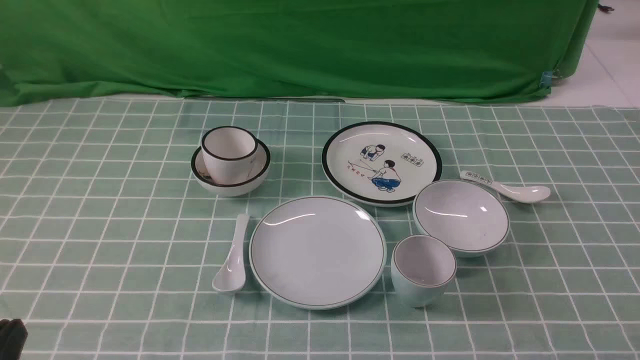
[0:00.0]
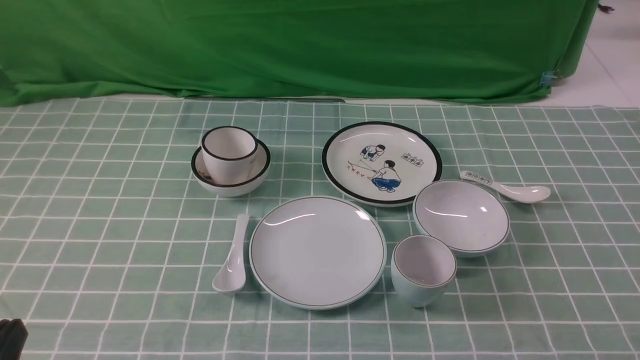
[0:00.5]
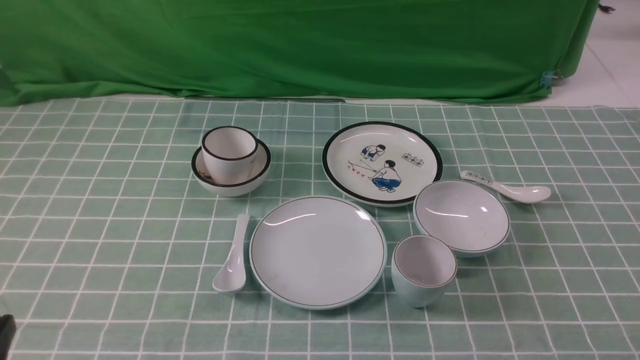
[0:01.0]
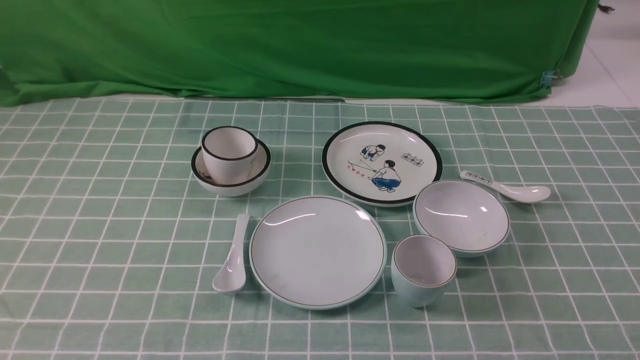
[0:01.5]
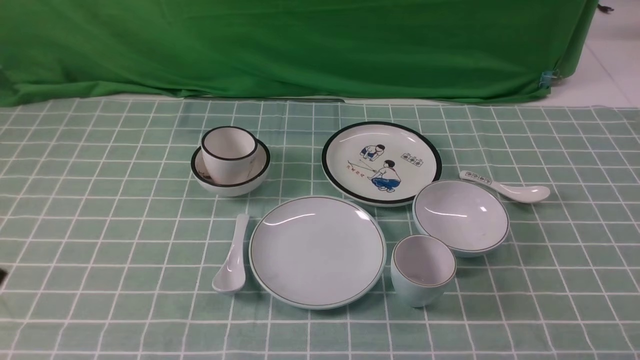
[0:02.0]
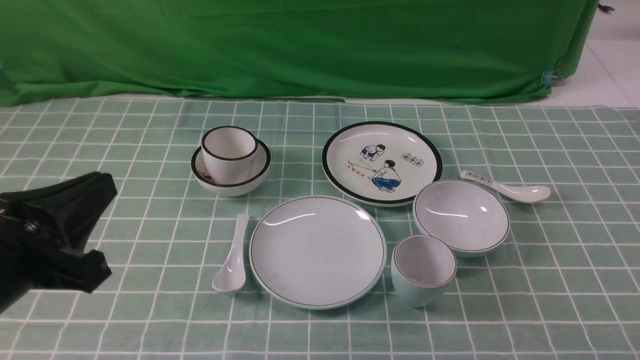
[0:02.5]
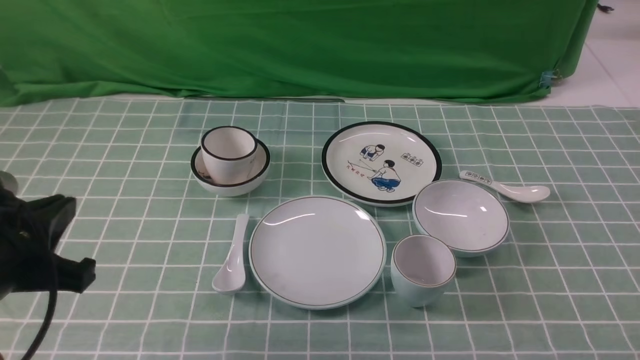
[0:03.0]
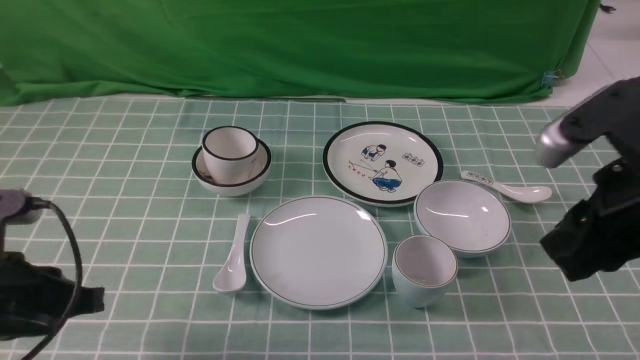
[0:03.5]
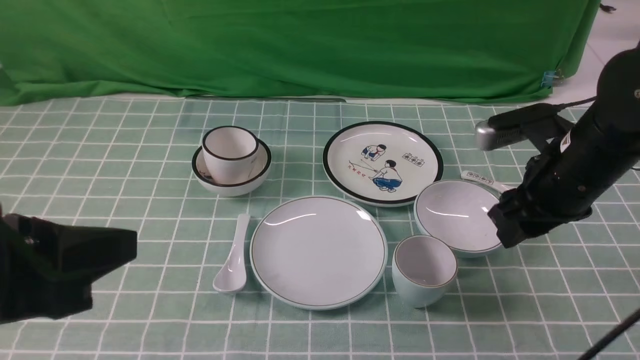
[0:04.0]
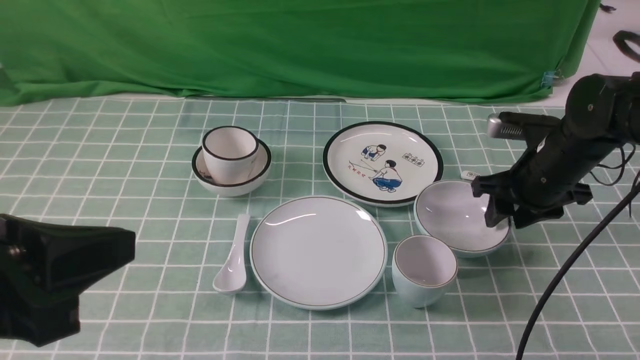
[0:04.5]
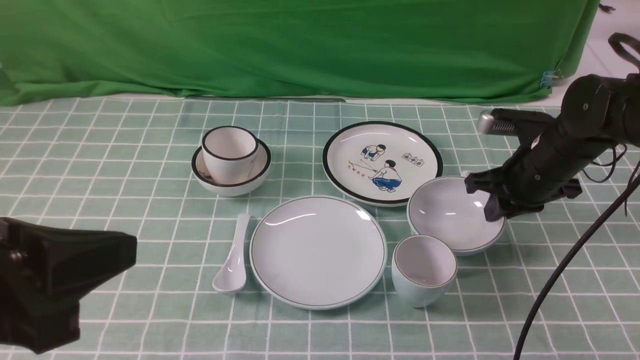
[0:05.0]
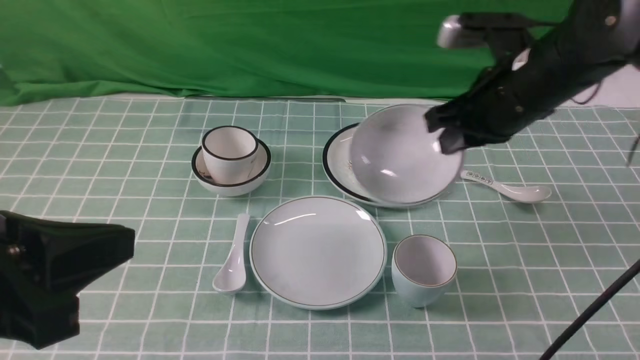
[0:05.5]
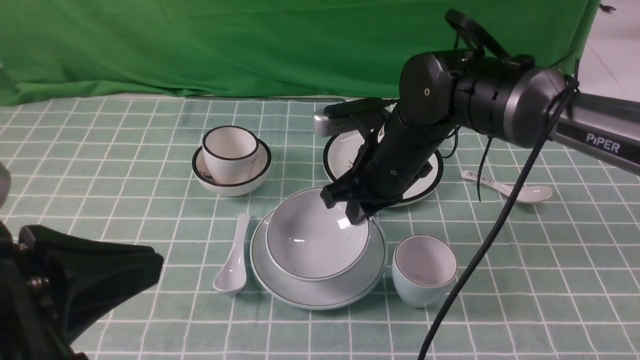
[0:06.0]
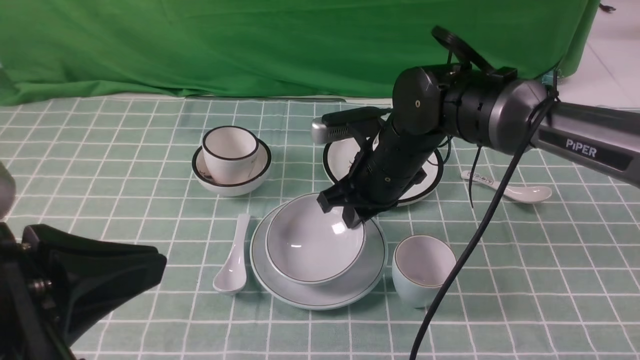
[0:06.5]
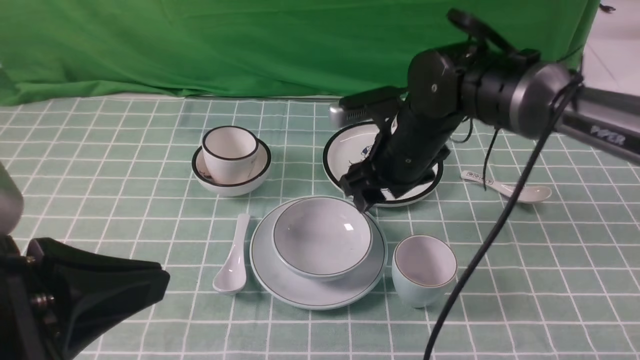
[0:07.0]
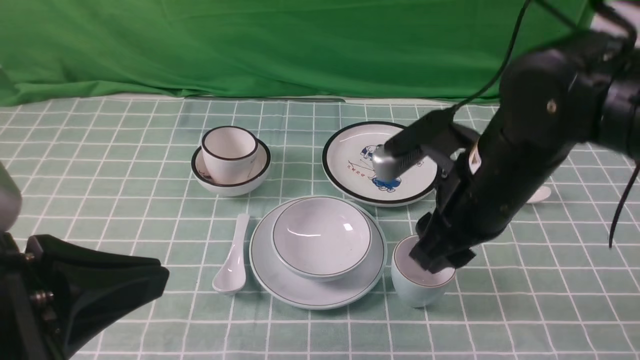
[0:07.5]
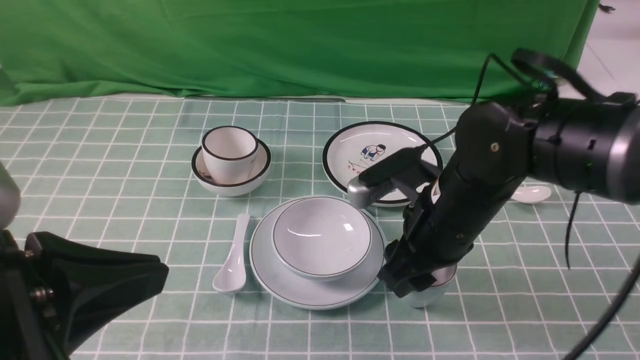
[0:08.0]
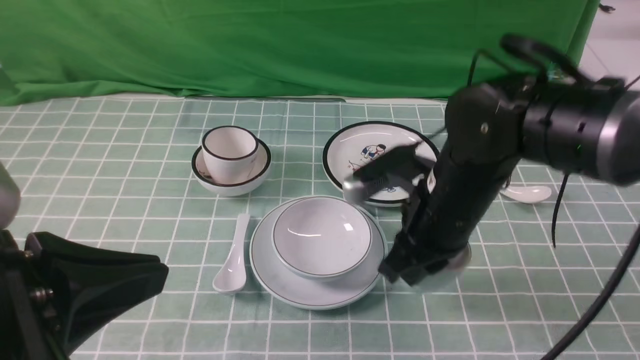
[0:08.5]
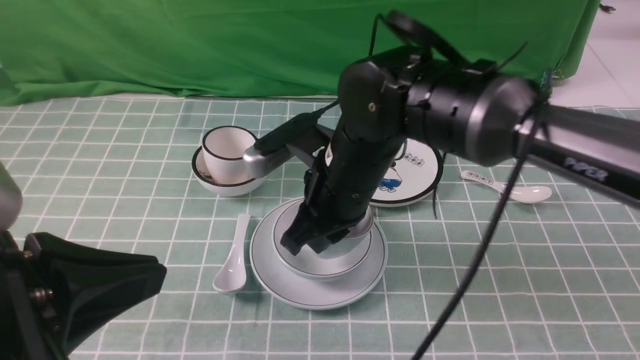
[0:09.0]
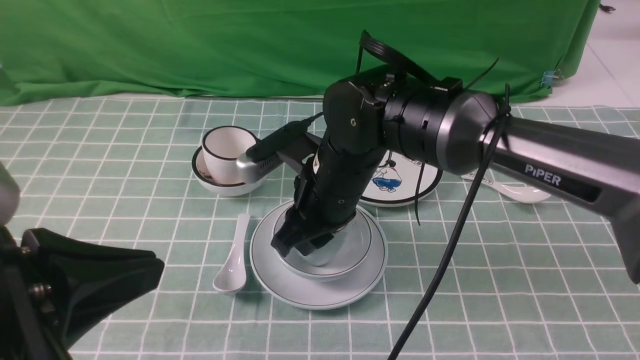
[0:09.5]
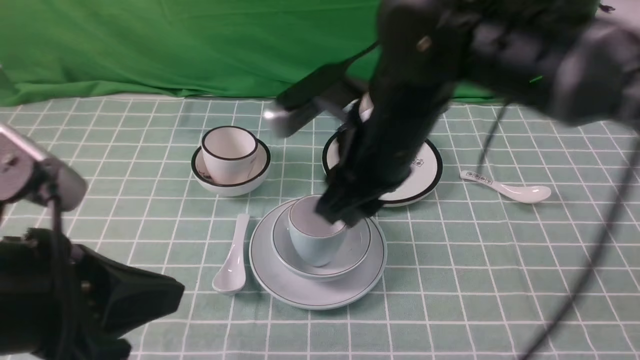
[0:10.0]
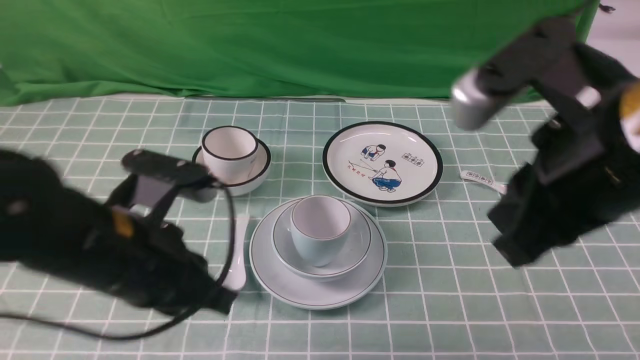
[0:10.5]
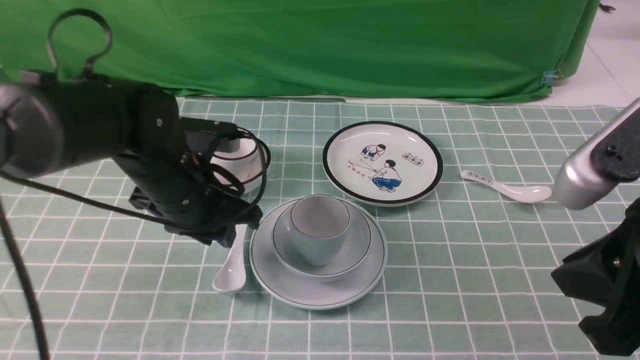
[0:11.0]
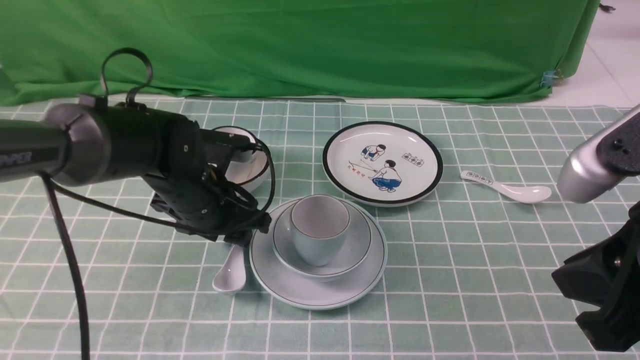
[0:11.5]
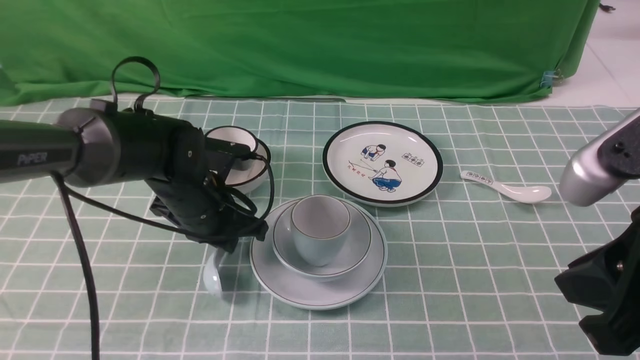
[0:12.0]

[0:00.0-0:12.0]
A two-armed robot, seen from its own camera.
Task of the whole recording: place the bowls on the plates on the blue tablecloth, put the cups on the bowls, and place the spoons in the cups.
Step, 0:00.0 to 0:04.5: Grasp the bowl with the right gripper.
Step, 0:05.0 to 0:06.5: Place the bowl on the plate with the right gripper.
Step, 0:07.0 to 0:08.0: Grasp the cup with the right gripper.
Step, 0:08.5 to 0:09.5: Place the cup on the bowl with the right gripper.
Step, 0:10.0 to 0:11.5: Grasp the spoon with the left gripper.
0:02.0 to 0:04.0: The right gripper travels forward by roughly 25 cm, while the left gripper moves forward, roughly 5 cm.
0:04.0 to 0:06.0: The right gripper moves to the left, some 15 cm, and closes its fingers.
0:06.0 to 0:08.0: The right gripper goes roughly 10 cm backward, and opens.
0:08.0 to 0:10.0: The right gripper goes roughly 10 cm to the left and upward, and closes, then opens again.
0:10.0 to 0:12.0: The right gripper goes roughly 25 cm to the right and backward, and closes its fingers; the left gripper goes about 30 cm forward and downward, and opens and closes again.

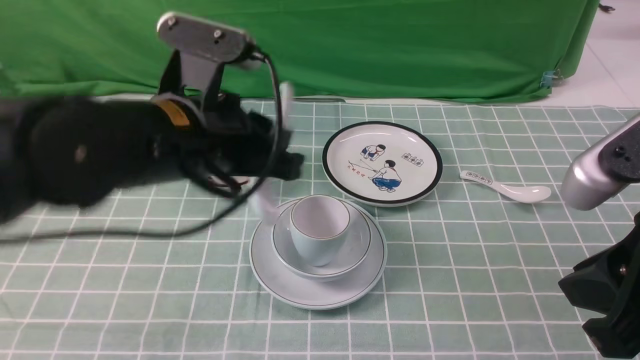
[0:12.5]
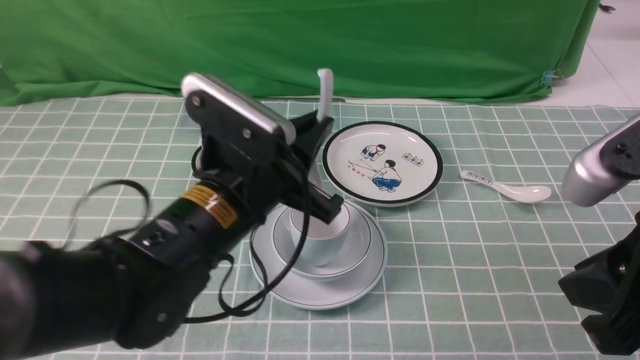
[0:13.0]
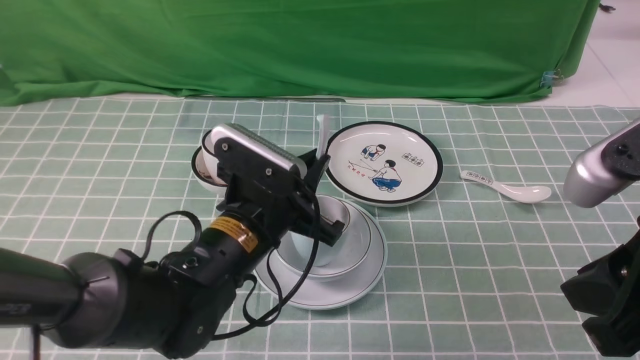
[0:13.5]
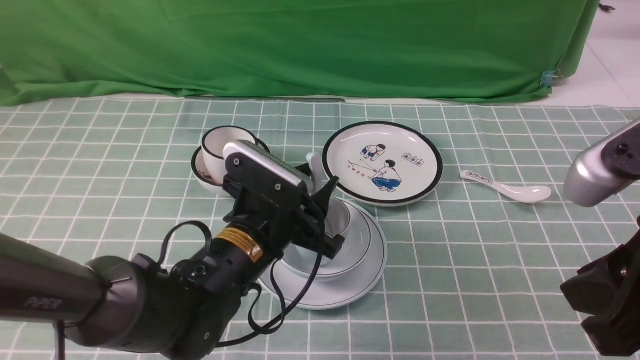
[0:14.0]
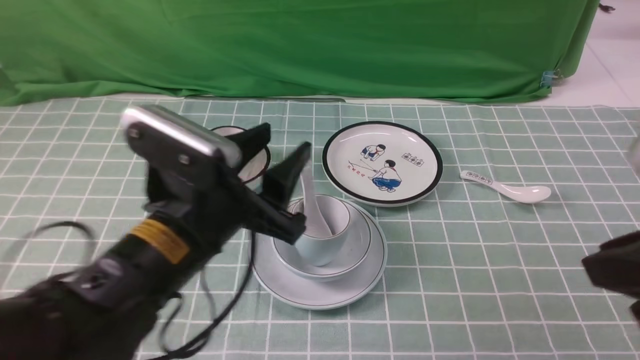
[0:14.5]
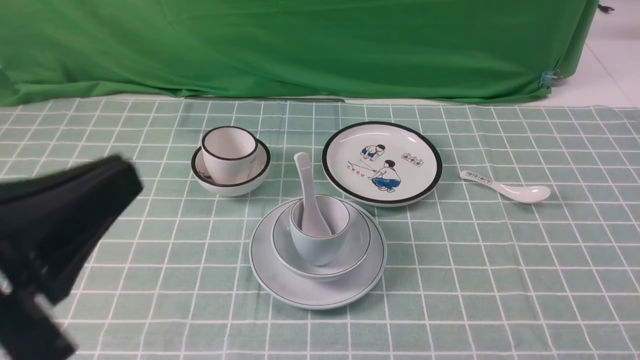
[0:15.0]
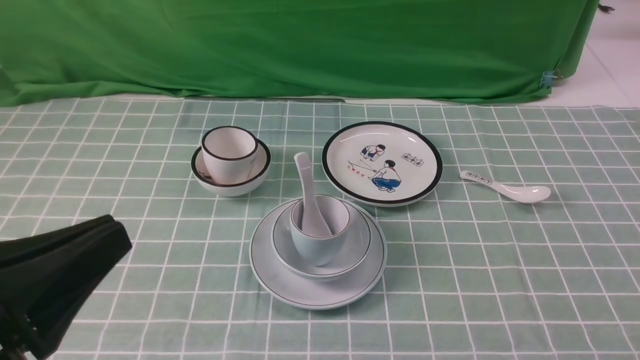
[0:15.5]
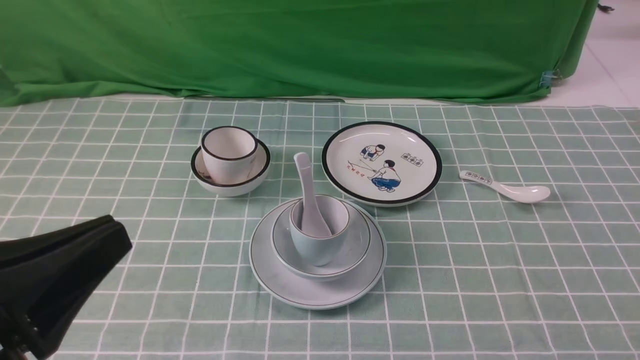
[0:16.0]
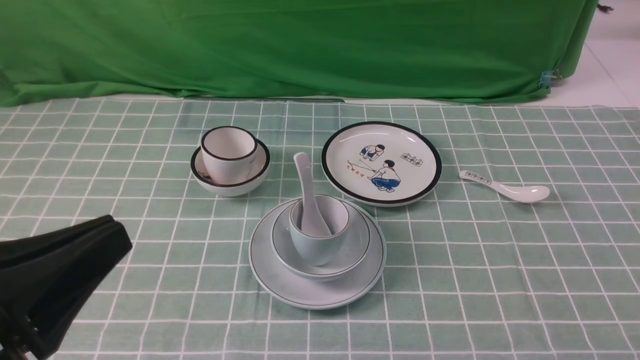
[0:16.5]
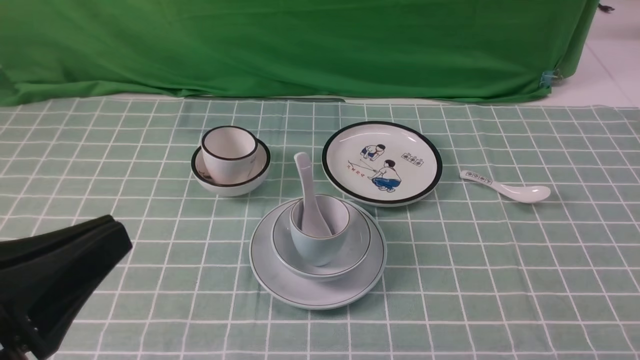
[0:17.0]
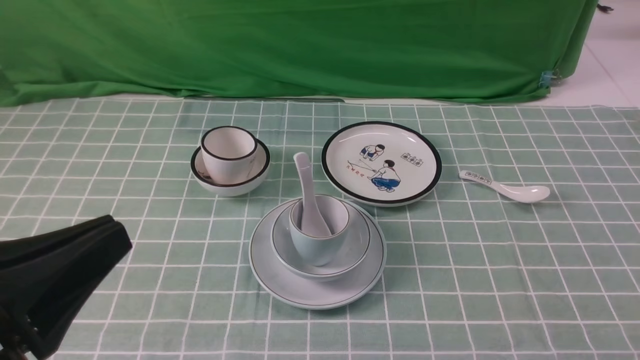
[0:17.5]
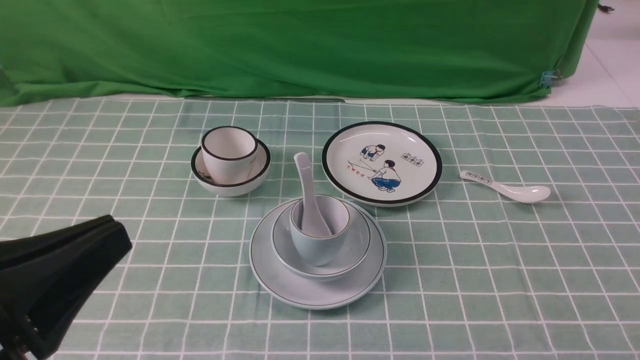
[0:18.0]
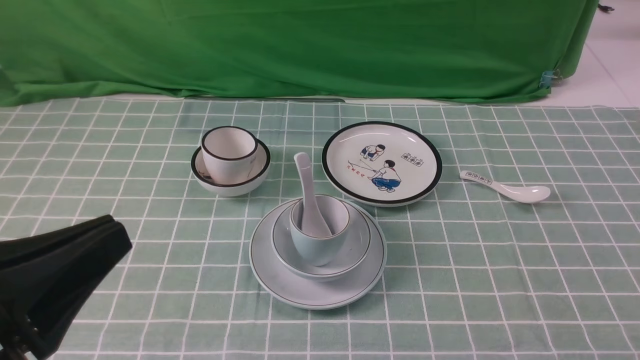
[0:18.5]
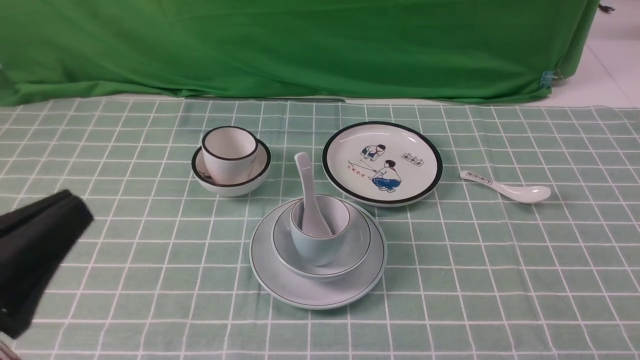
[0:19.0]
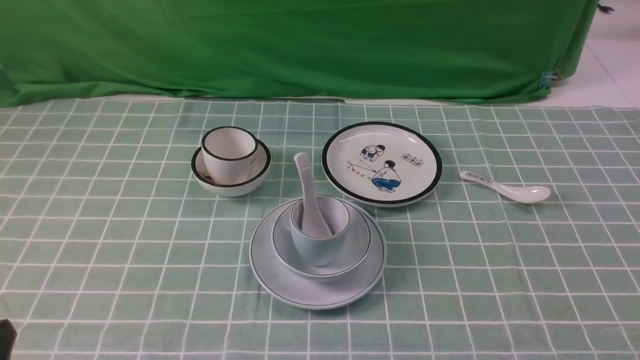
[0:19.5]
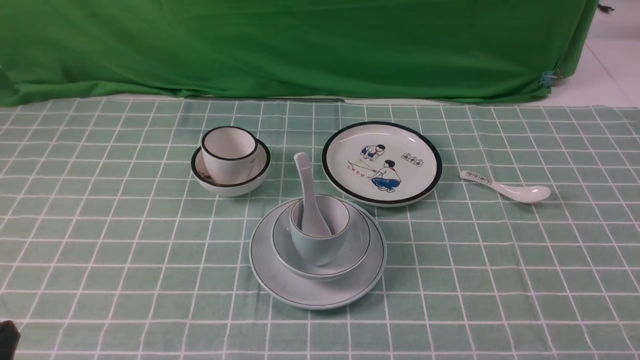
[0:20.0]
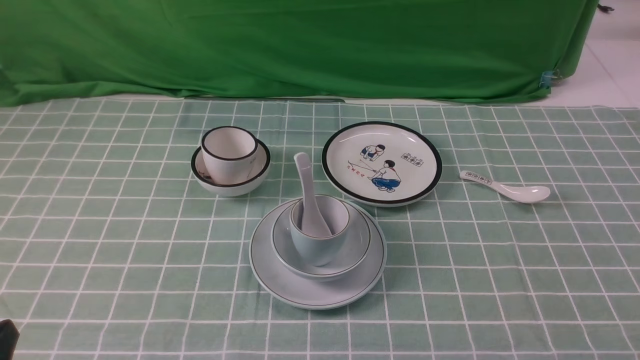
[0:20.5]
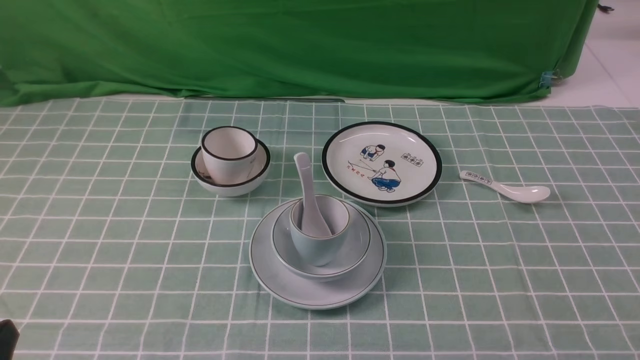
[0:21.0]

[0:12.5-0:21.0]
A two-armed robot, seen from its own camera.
Task of the whole recording: place the bowls on the plates on the blue tablecloth, put the cups on the bowls, and place the spoons in the cups.
Step, 0:12.5 to 0:14.0: Place the spoon on the cup with the left gripper.
0:12.5 to 0:14.5: The left gripper is displaced backward by roughly 5 cm, goes downward and returns, about 10 cm each way, and opens up.
0:14.5 to 0:16.5: The left gripper shifts approximately 20 cm backward, to the left and upward, and closes up. The right gripper goes some 15 cm to the right, backward and downward, and closes.
0:19.0 to 0:21.0: The left gripper goes roughly 10 cm downward.
